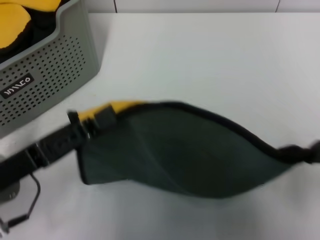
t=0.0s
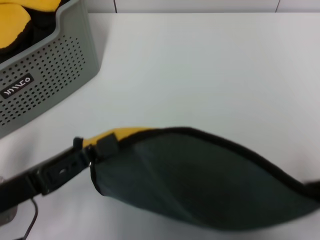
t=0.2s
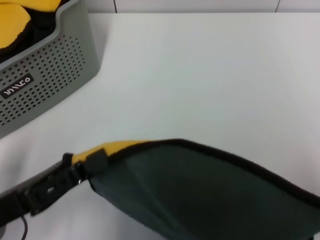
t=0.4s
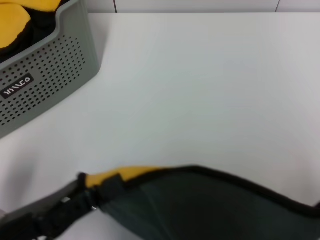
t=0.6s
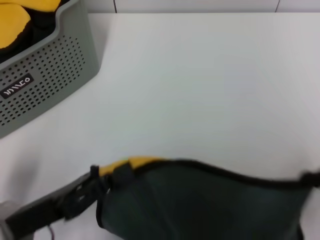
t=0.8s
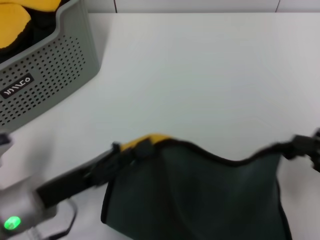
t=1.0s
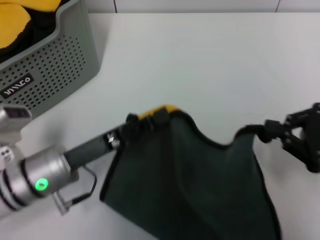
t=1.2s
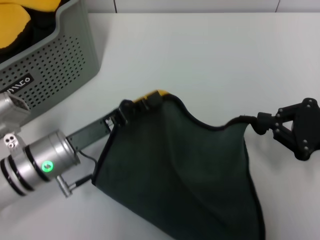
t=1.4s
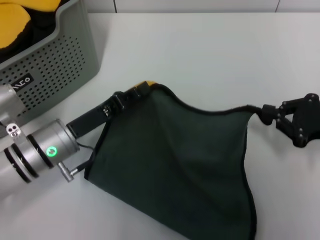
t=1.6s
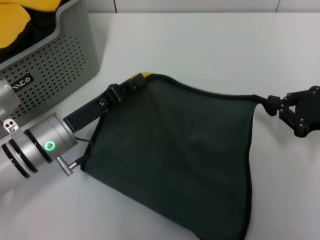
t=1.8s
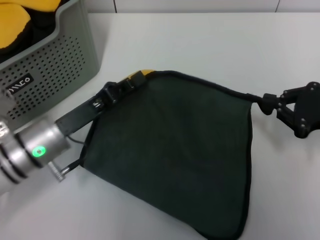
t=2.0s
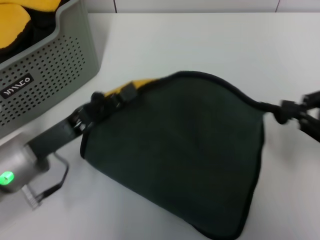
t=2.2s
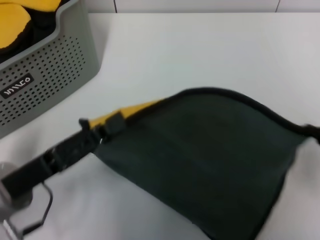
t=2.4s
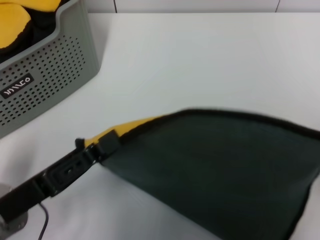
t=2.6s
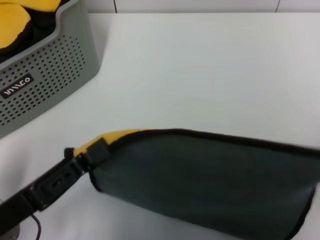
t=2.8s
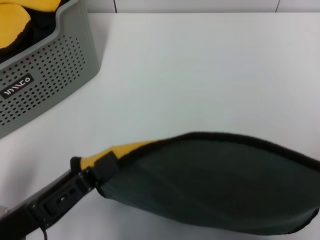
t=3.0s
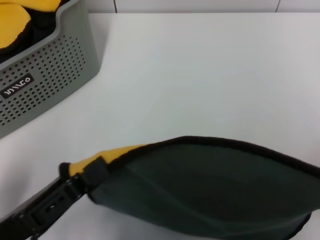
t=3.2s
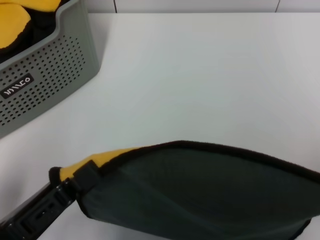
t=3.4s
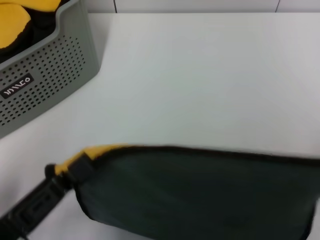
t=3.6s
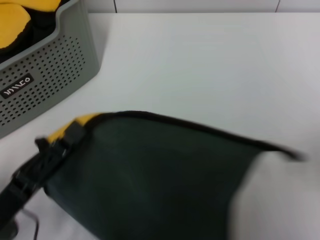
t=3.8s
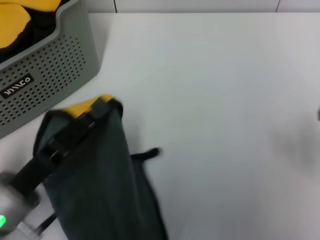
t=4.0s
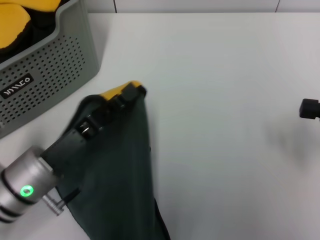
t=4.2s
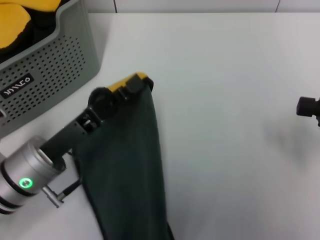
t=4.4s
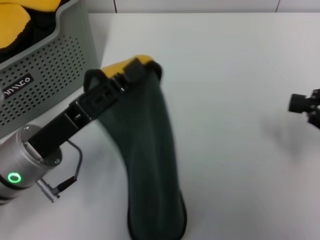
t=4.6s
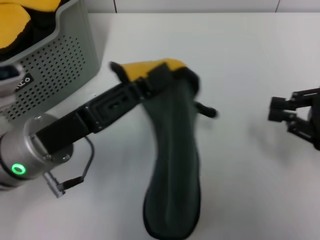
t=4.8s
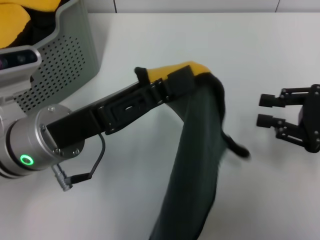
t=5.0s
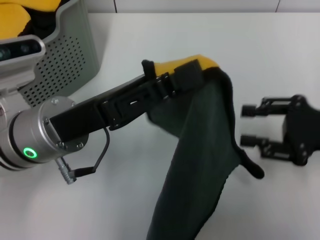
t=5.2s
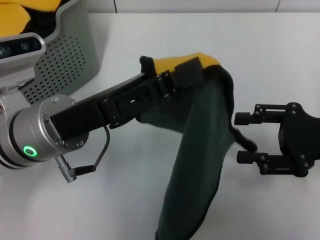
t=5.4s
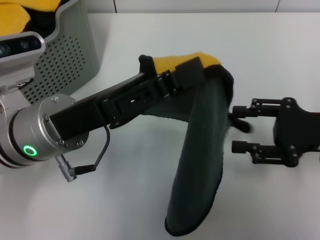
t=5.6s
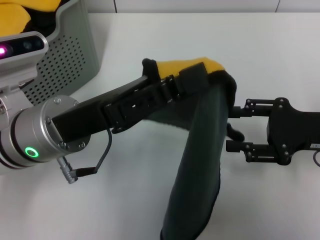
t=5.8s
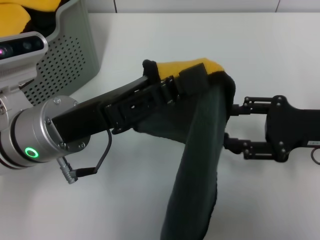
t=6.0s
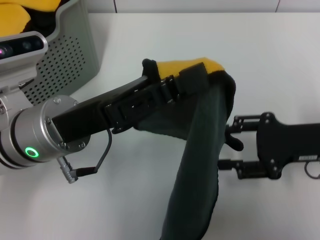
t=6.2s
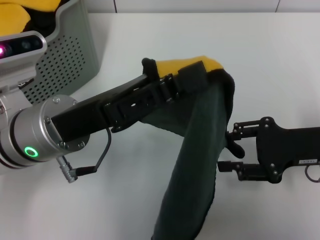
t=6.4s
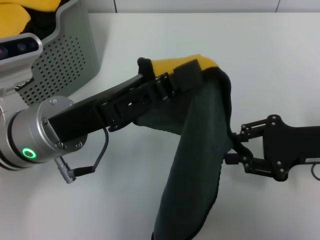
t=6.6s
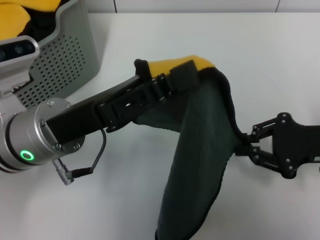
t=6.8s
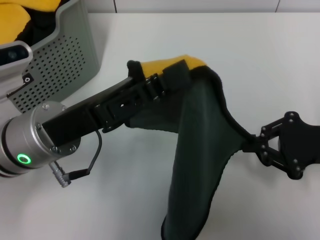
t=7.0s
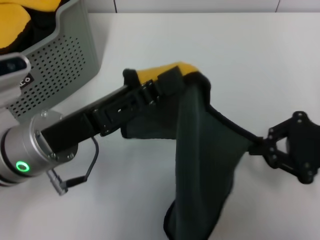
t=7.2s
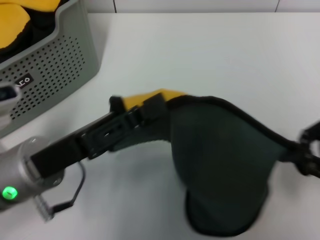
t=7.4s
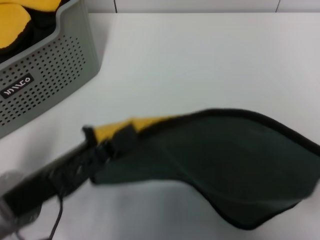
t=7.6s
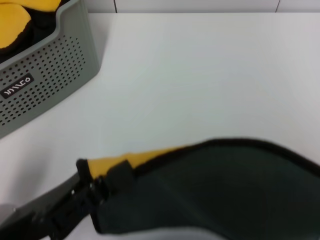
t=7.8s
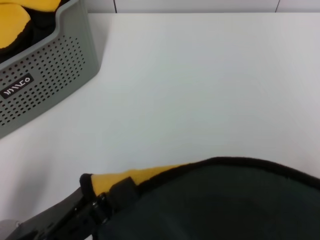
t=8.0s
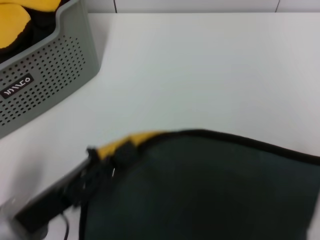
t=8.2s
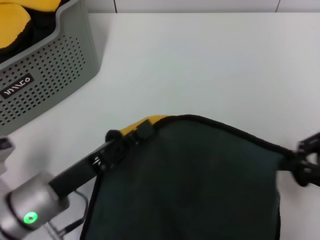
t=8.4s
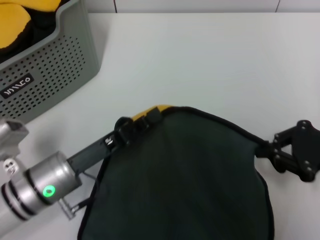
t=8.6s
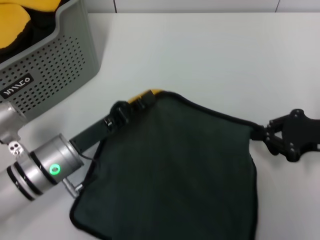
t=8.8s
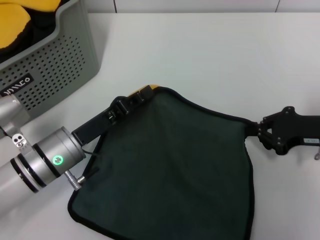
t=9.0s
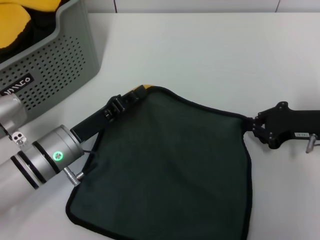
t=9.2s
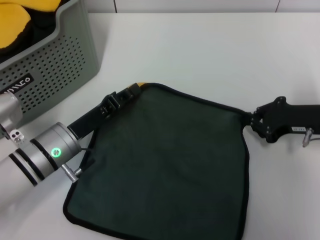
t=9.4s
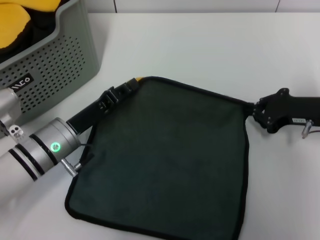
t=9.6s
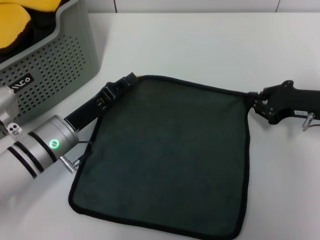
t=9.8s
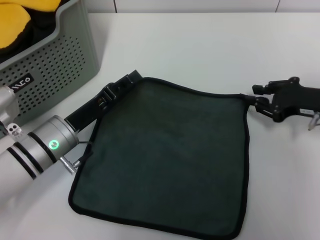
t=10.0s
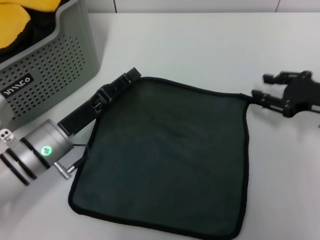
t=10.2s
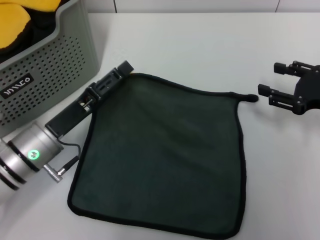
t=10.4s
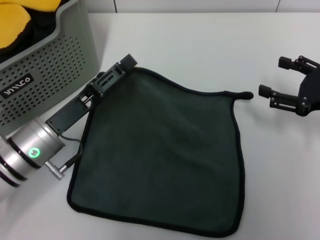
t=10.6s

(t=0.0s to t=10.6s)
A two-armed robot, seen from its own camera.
Task of the whole recording: pick up the towel from the storage box and lay it flat on the table.
t=0.0s - t=1.6s: The left gripper moves forward and downward, some 10 cm, while the right gripper goes approximately 15 cm downward and forward.
t=1.6s - t=3.0s: The left gripper travels backward by roughly 15 cm, while the right gripper travels upward, backward and to the right by some 15 cm.
t=3.0s - t=4.6s: The left gripper is displaced forward by approximately 10 cm. The right gripper heads forward and downward, covering approximately 10 cm.
t=4.6s - t=6.0s: The right gripper heads to the left, covering approximately 5 cm, and opens up; the left gripper ends up about 5 cm from where it was.
t=6.0s - t=7.6s: The left gripper goes approximately 10 cm backward and to the left. The right gripper goes roughly 10 cm to the right, backward and upward, and closes.
t=7.6s - t=9.0s: The left gripper shifts some 10 cm forward and downward. The right gripper heads downward, forward and to the left, covering about 15 cm.
t=9.0s - t=10.6s: The right gripper opens its fingers. The left gripper opens its fingers.

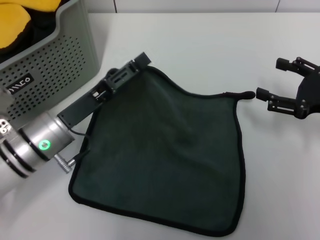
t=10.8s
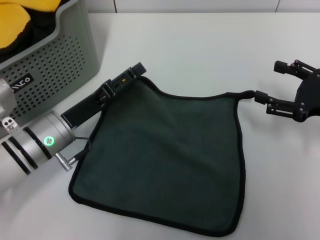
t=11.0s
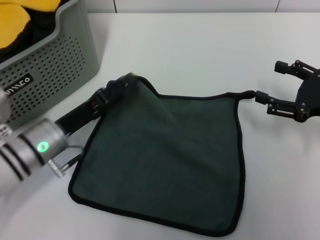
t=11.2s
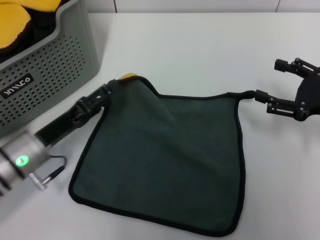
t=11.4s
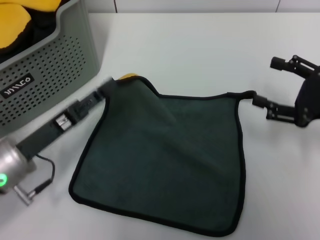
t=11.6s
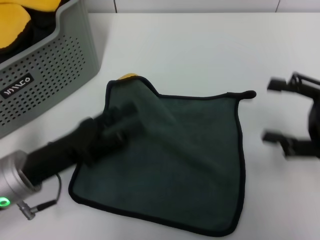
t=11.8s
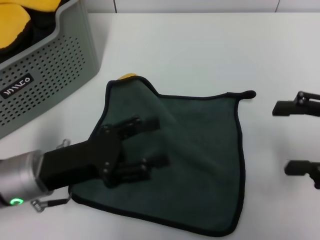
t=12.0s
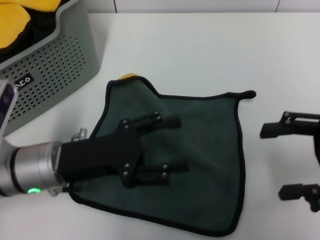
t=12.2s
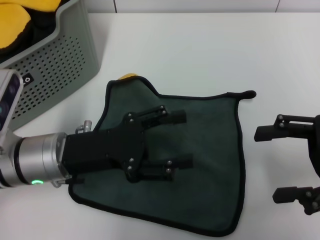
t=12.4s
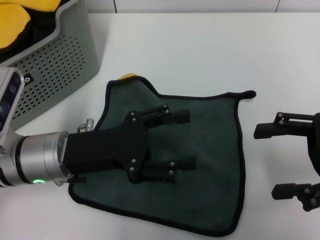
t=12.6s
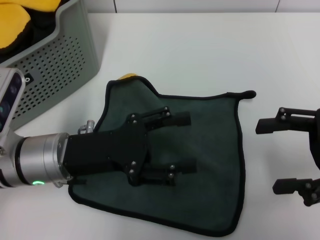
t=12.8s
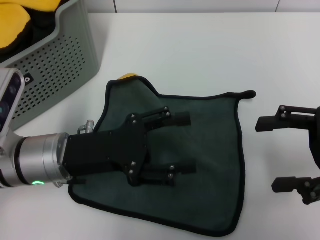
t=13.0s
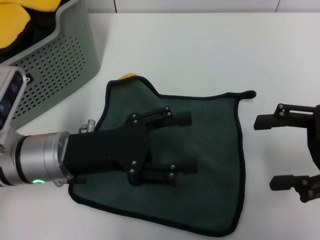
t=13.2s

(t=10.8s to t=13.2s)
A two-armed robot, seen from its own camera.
Task of the whole recording: pick up the towel from the storage box and lay it flat on the table.
t=10.8s - t=12.0s: The left gripper goes approximately 5 cm backward. Meanwhile the right gripper travels upward by about 5 cm.
t=12.0s - t=13.2s: The grippers stay close to where they were, moving slightly.

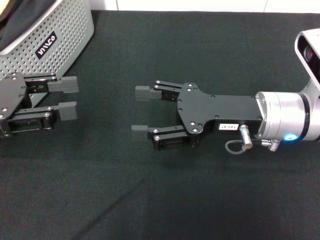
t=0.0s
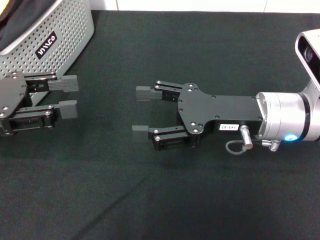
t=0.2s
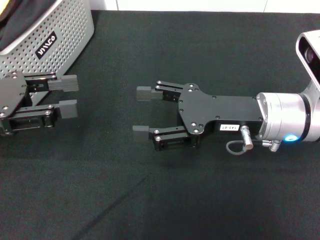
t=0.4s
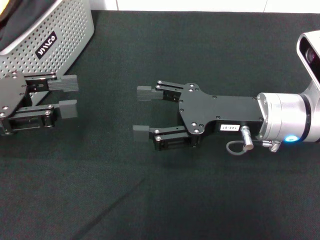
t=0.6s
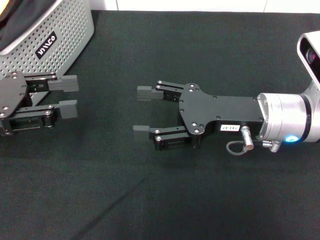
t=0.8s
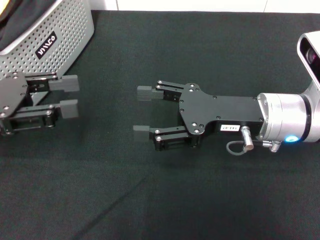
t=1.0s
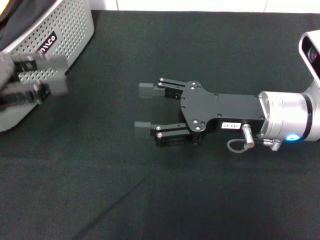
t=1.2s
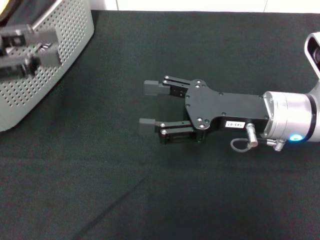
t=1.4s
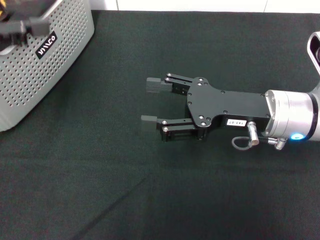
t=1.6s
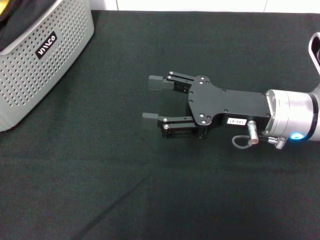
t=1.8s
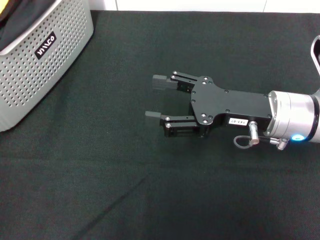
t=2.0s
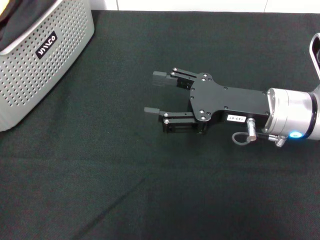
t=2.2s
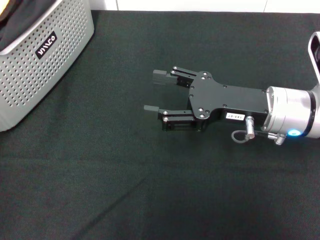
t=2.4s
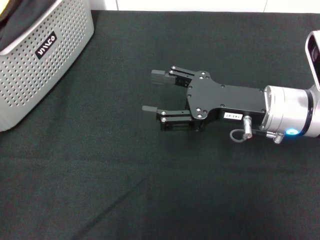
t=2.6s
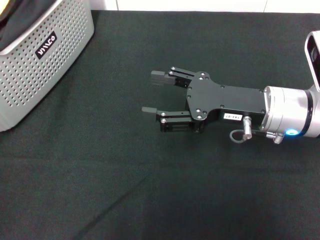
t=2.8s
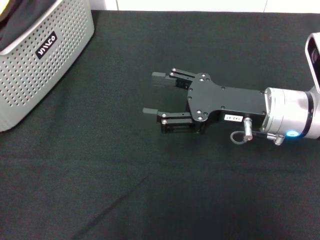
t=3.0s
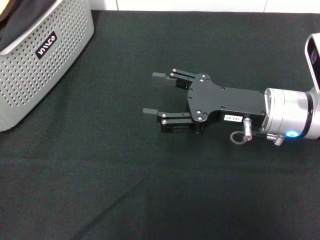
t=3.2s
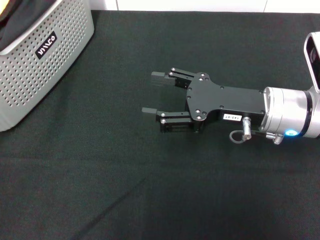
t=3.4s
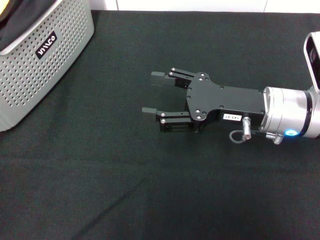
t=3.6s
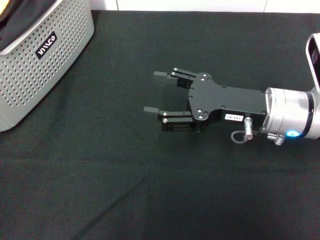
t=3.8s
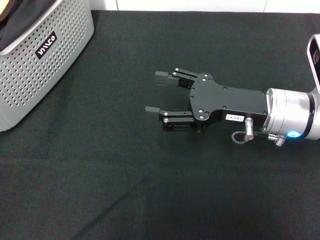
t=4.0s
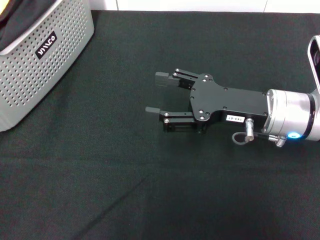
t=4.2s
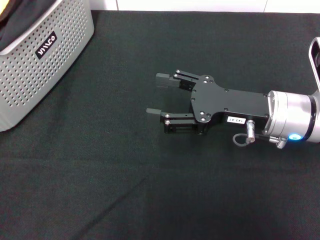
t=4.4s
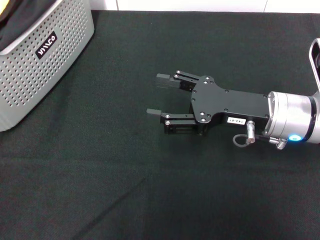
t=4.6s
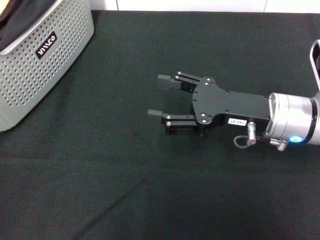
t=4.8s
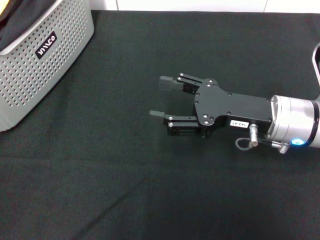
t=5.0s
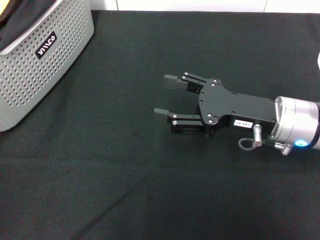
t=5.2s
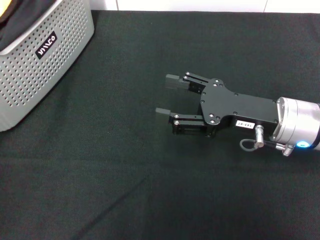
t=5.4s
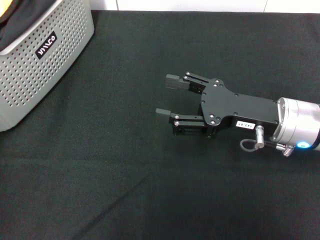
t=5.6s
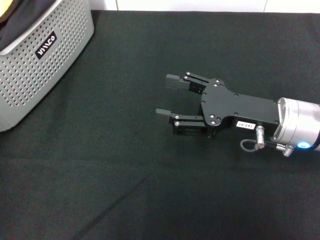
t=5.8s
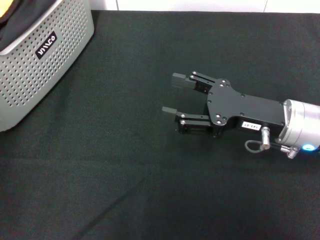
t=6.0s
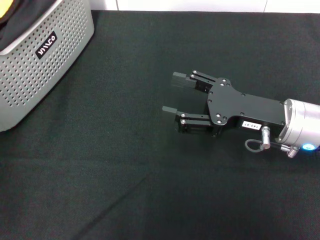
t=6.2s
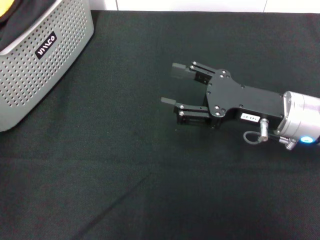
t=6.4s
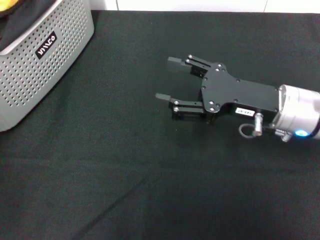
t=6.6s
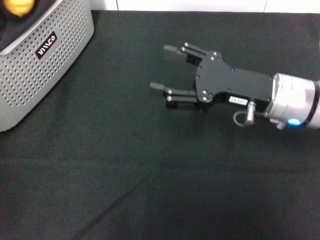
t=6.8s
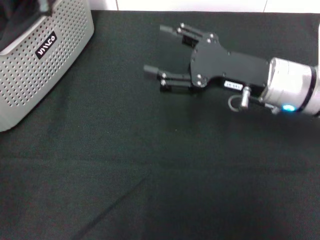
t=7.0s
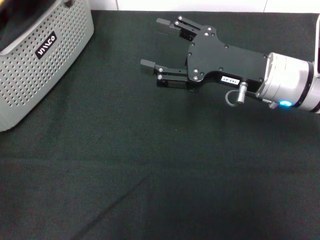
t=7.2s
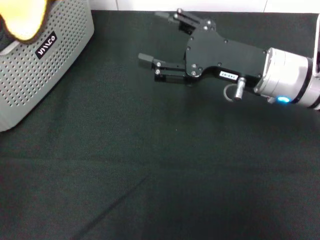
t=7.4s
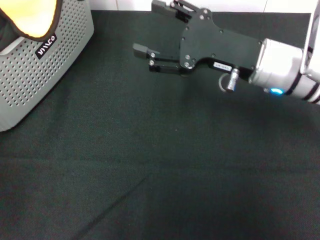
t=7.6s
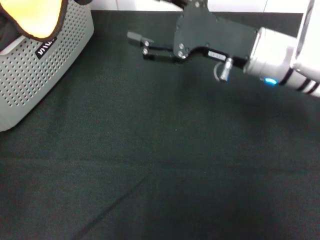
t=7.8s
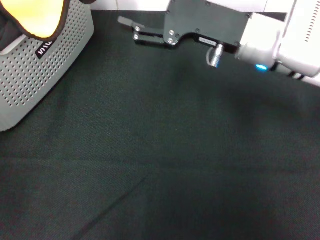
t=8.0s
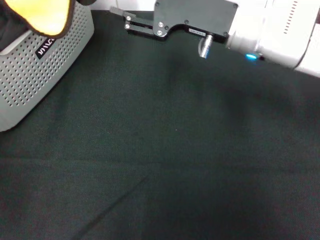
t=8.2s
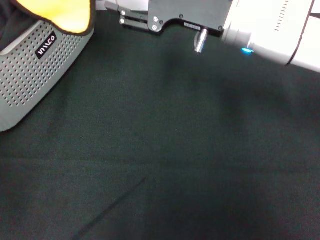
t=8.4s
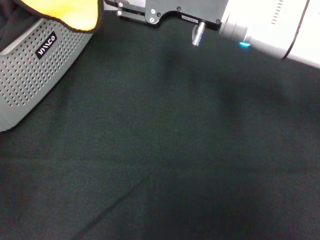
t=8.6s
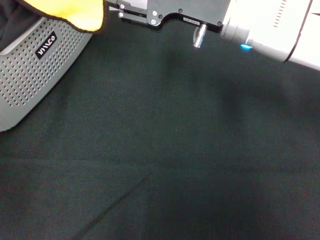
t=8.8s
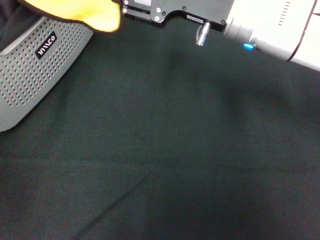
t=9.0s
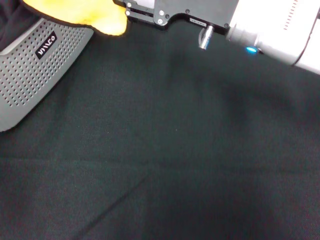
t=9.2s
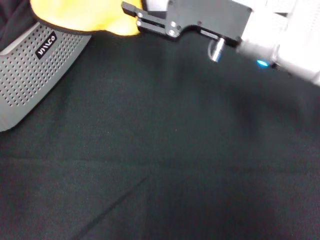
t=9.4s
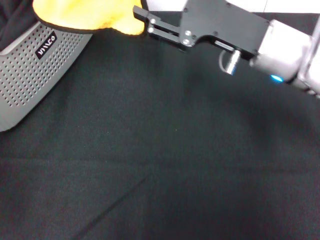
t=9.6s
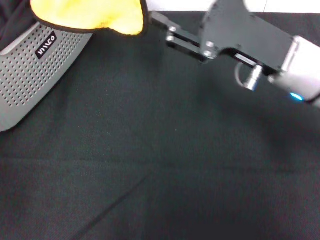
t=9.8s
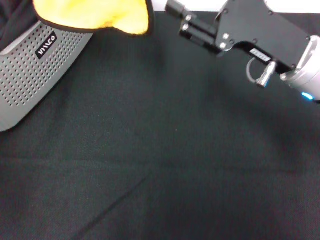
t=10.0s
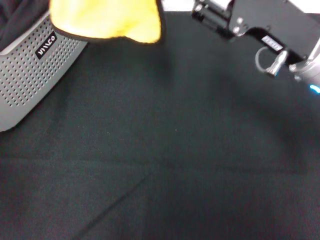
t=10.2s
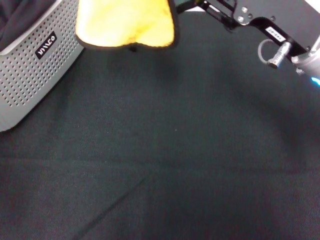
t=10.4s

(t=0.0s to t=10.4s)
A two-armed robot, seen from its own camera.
Task of the whole recording: pick up the towel from the storage box and lay it flat on the black tablecloth.
Step, t=0.0s - t=5.6s: Pick up a towel with the left gripper.
Step, t=6.0s - t=10.2s: Spread the towel flat with the left gripper.
t=0.0s - t=1.4s: The grippers move only a little.
t=1.4s - t=3.0s: The left gripper shifts some 10 cm upward.
t=3.0s - t=4.4s: The grippers stay close to where they were, moving slightly.
t=4.4s - t=6.0s: The left gripper heads to the right and upward, covering roughly 10 cm, and closes its fingers.
t=6.0s - t=7.4s: The right gripper moves approximately 5 cm; the left gripper moves upward, some 5 cm.
t=7.4s - t=9.0s: The right gripper moves approximately 10 cm.
t=9.0s - t=10.4s: The right gripper moves to the right and backward, about 10 cm.
